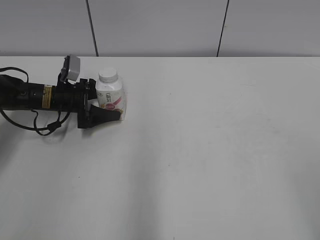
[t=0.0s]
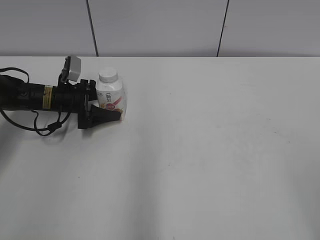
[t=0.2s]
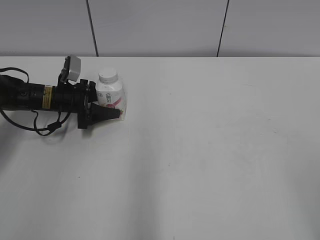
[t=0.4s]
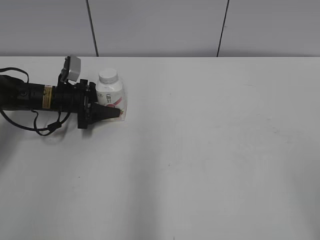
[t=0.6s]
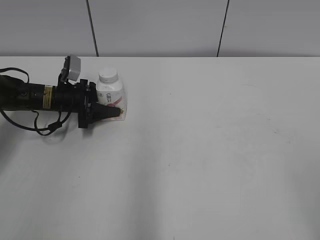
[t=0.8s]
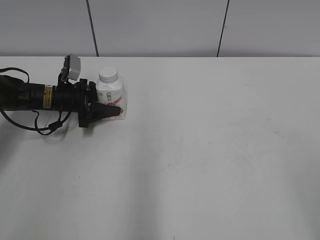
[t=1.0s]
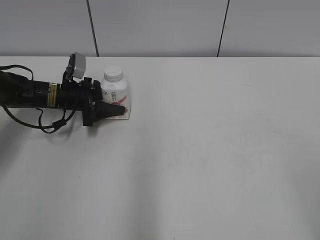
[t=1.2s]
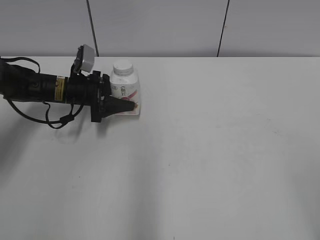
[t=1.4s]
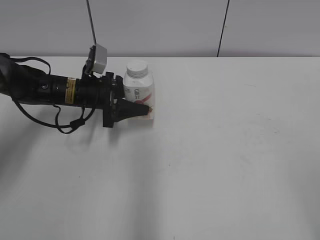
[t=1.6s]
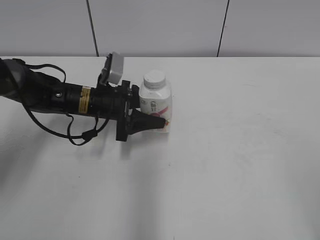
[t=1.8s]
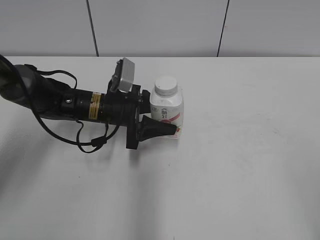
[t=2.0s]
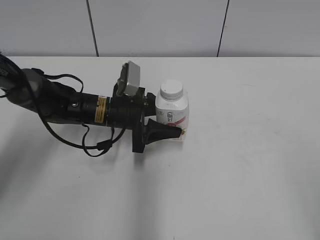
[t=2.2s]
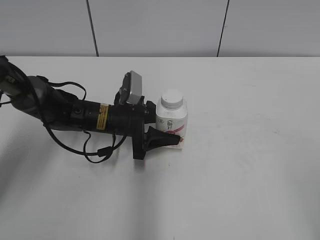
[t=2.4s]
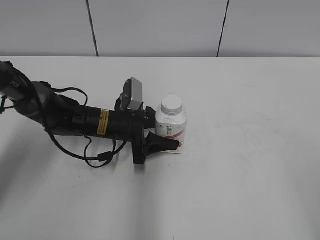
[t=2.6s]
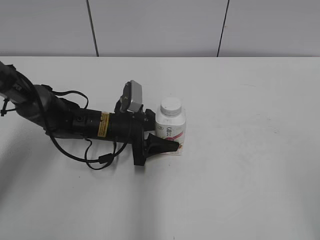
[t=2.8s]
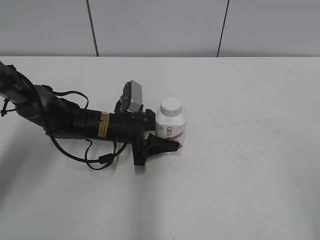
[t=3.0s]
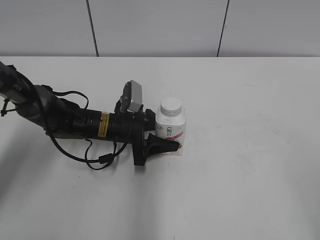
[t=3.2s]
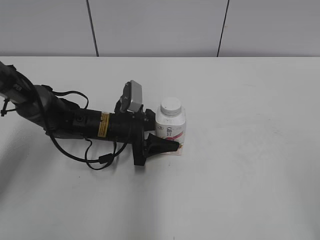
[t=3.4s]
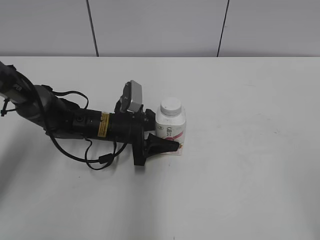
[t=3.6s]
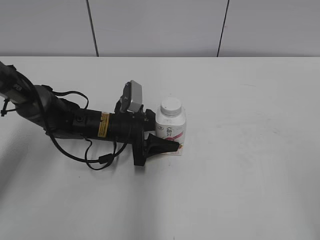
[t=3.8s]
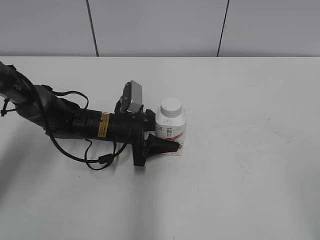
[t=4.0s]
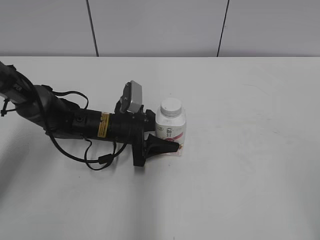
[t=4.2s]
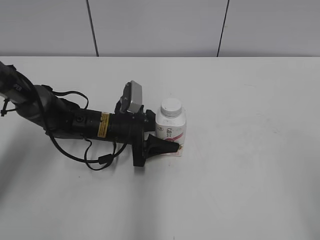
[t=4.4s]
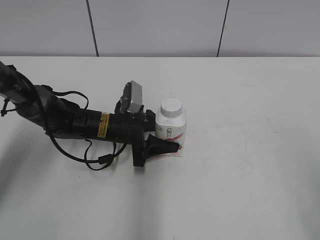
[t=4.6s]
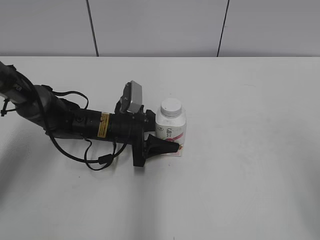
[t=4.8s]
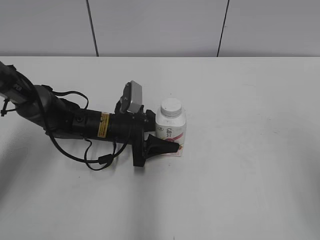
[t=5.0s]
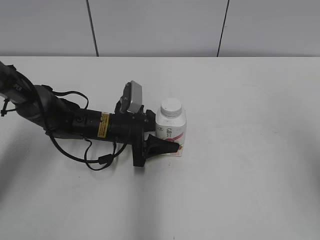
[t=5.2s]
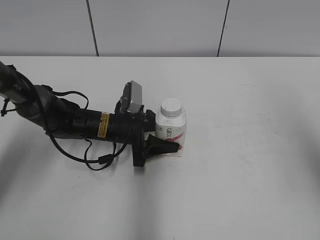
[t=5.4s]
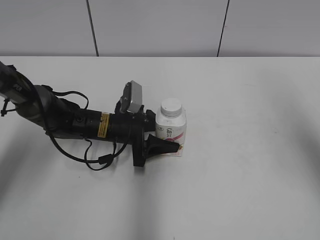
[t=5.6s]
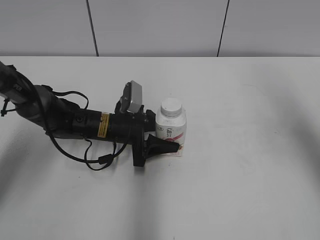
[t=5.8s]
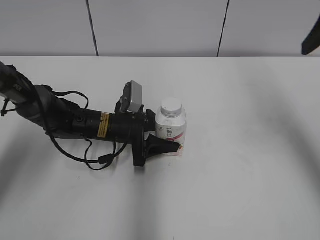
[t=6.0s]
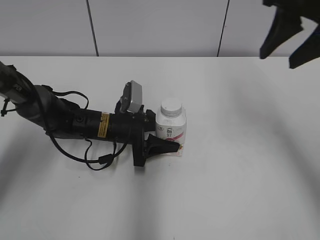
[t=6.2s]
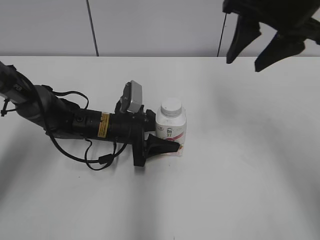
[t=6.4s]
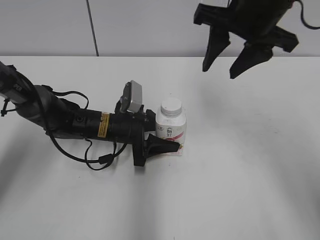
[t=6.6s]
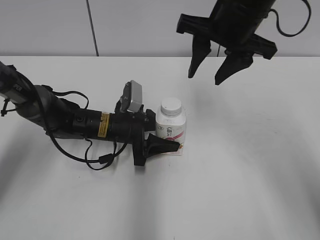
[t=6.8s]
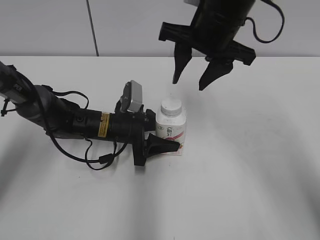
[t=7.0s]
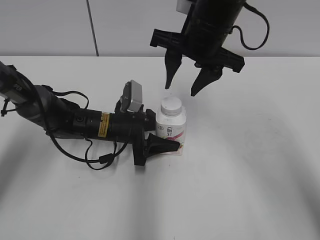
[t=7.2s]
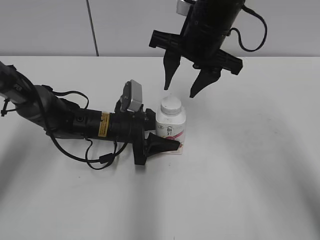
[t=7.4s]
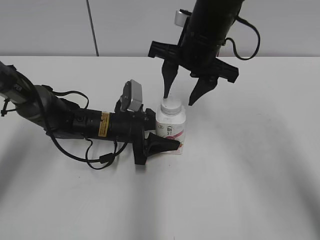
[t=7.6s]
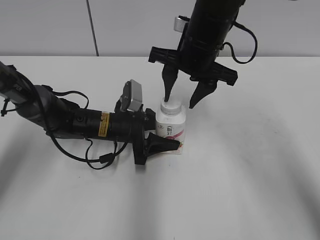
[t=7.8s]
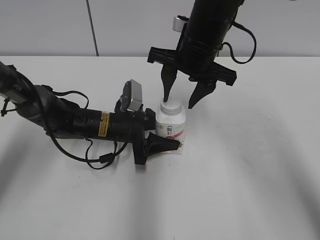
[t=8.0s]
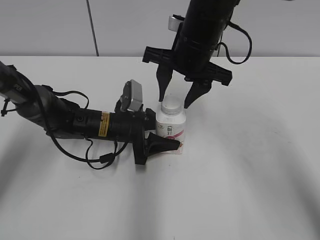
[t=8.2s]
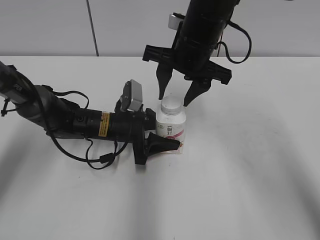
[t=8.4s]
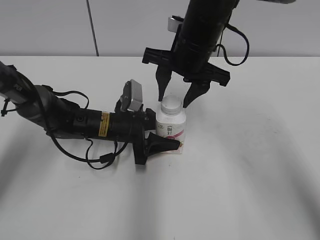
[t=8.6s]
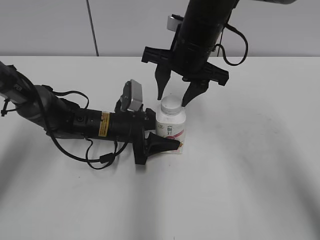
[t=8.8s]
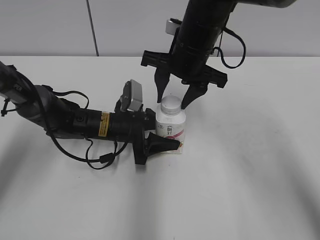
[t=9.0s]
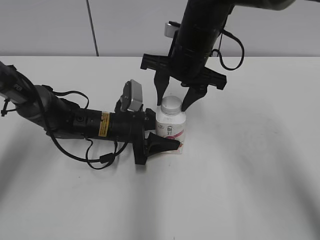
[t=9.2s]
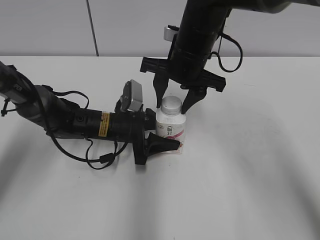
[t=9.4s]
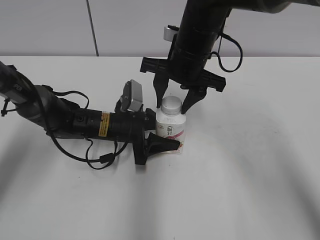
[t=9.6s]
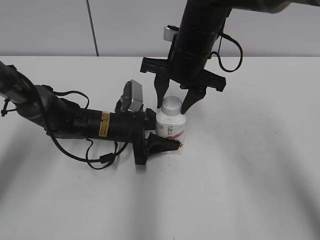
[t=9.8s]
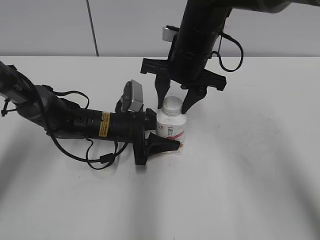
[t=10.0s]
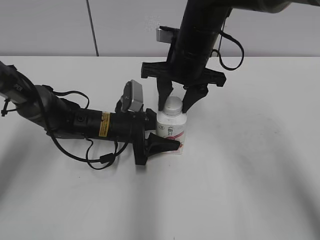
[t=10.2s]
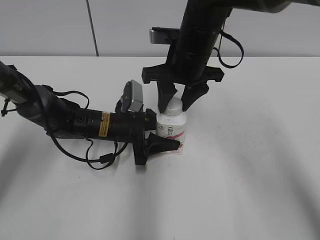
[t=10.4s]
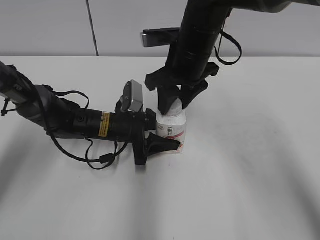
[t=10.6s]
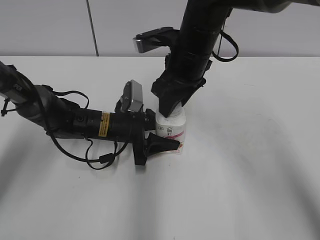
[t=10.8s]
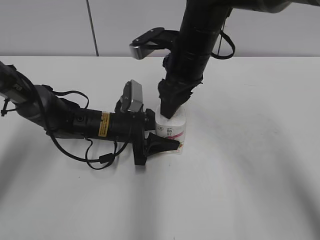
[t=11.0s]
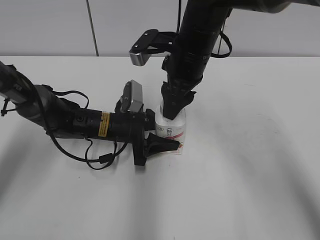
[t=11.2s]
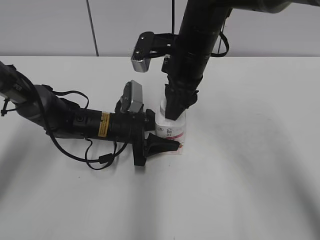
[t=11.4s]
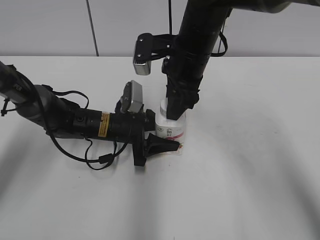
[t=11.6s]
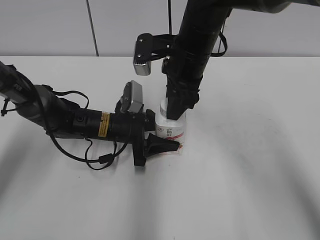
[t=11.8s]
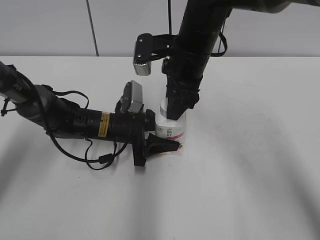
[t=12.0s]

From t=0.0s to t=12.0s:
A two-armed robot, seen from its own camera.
Step, from t=1.0s to t=3.4s: Move the Yili Changqing from left to right.
From t=0.0s to t=1.6s: The left gripper shifts some 5 cm to the right, and closes up.
From t=1.6s to t=3.0s: The left gripper heads to the right and downward, covering about 10 cm.
From t=4.4s to t=6.0s: The right gripper moves forward, approximately 25 cm.
From t=6.0s to t=7.6s: The right gripper shifts approximately 20 cm to the left, downward and forward.
From t=7.6s to t=9.0s: The grippers make only small movements.

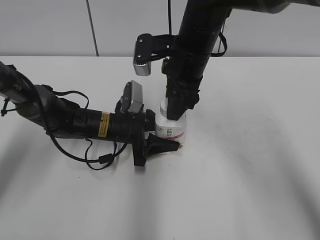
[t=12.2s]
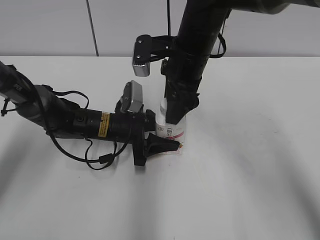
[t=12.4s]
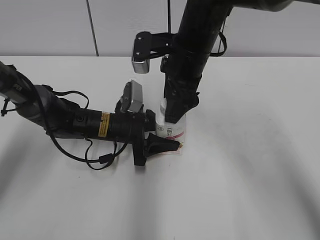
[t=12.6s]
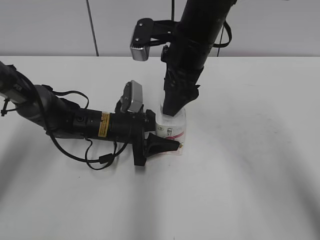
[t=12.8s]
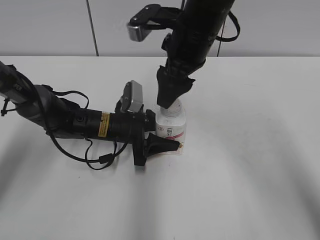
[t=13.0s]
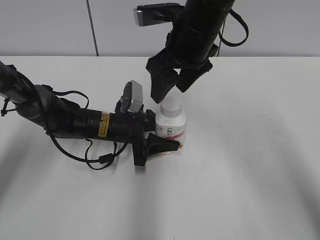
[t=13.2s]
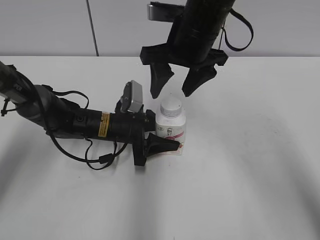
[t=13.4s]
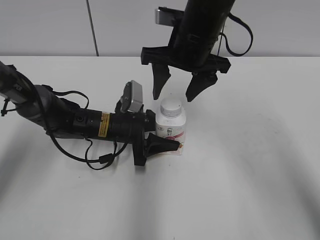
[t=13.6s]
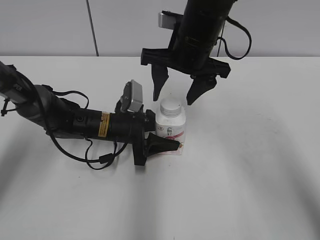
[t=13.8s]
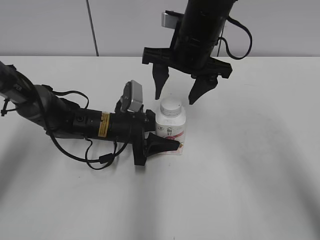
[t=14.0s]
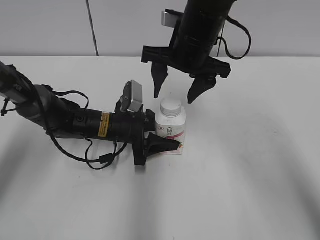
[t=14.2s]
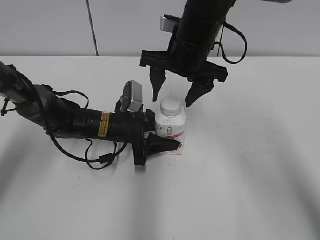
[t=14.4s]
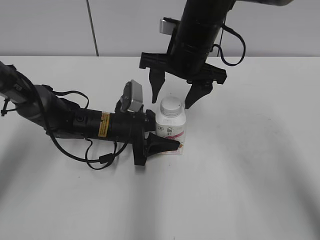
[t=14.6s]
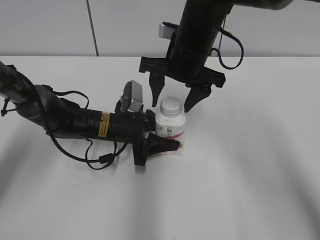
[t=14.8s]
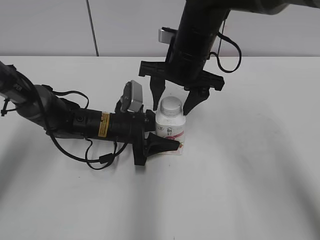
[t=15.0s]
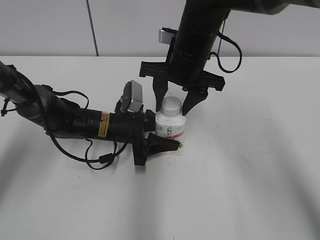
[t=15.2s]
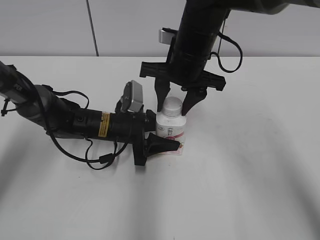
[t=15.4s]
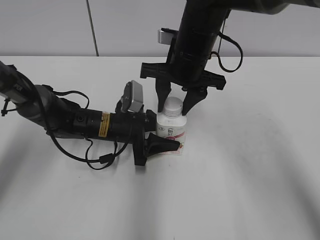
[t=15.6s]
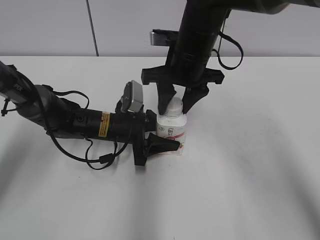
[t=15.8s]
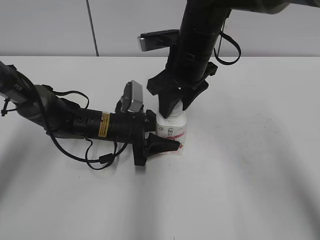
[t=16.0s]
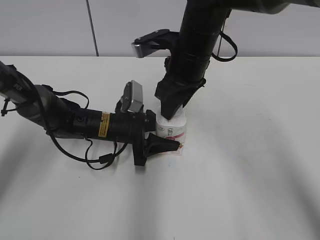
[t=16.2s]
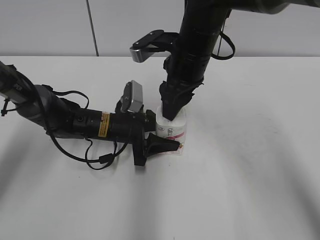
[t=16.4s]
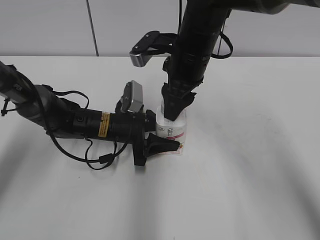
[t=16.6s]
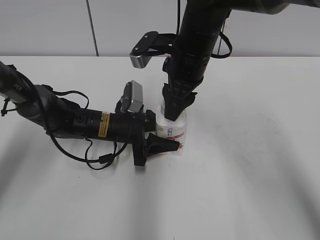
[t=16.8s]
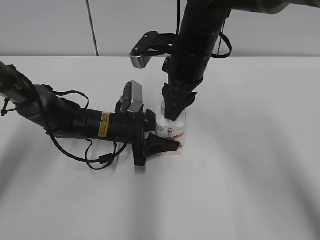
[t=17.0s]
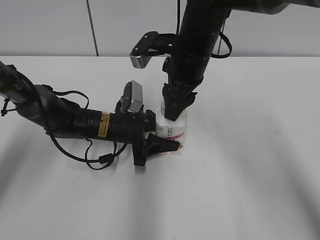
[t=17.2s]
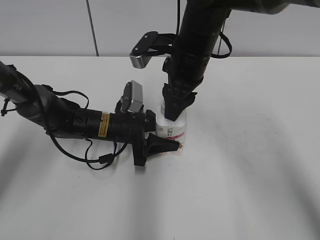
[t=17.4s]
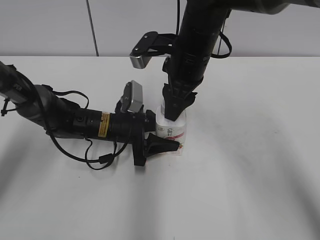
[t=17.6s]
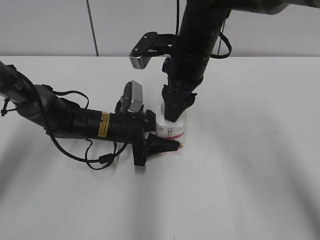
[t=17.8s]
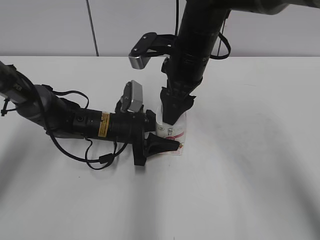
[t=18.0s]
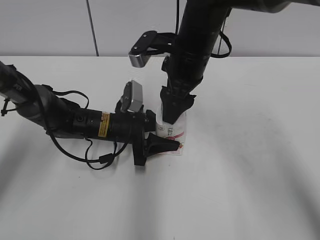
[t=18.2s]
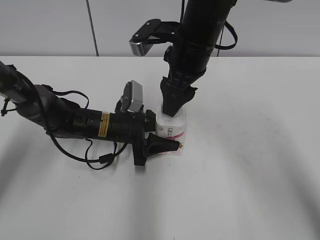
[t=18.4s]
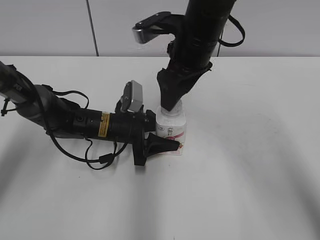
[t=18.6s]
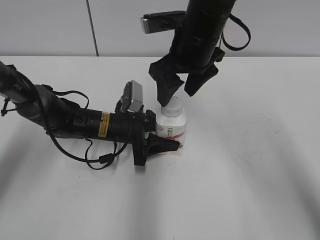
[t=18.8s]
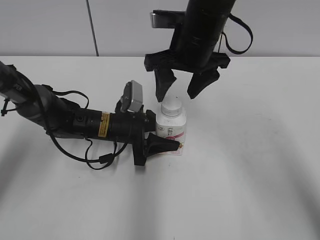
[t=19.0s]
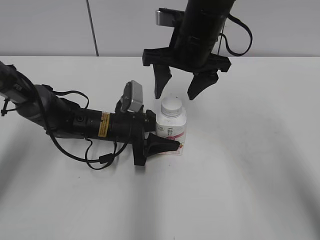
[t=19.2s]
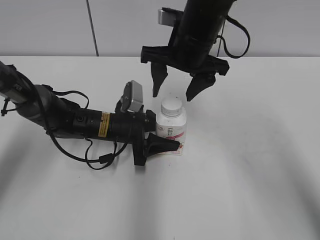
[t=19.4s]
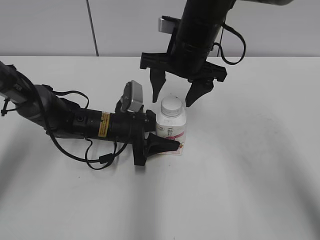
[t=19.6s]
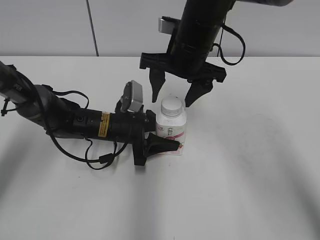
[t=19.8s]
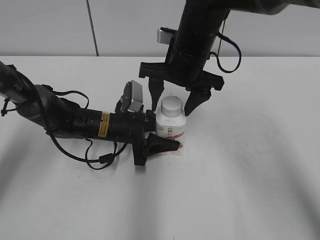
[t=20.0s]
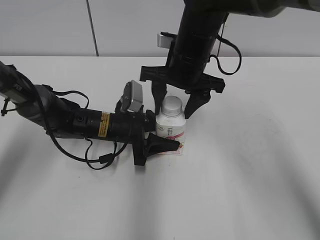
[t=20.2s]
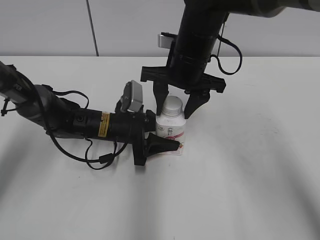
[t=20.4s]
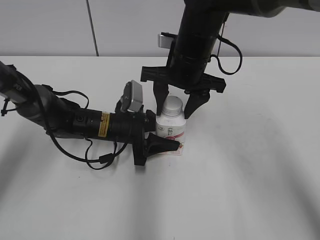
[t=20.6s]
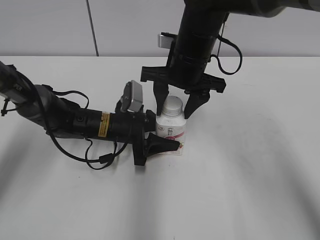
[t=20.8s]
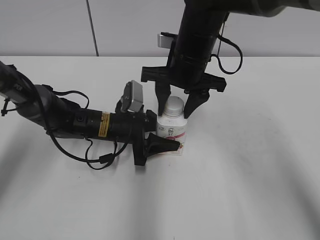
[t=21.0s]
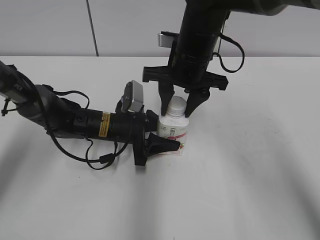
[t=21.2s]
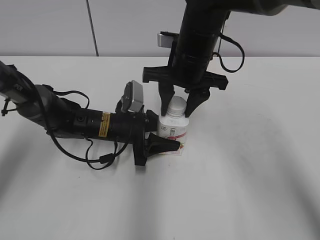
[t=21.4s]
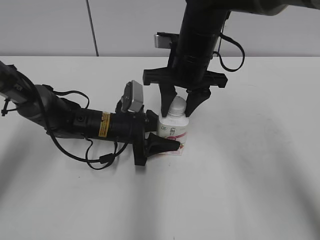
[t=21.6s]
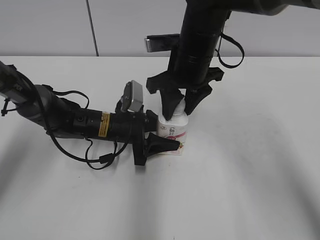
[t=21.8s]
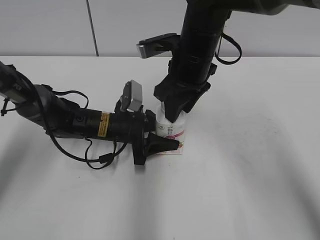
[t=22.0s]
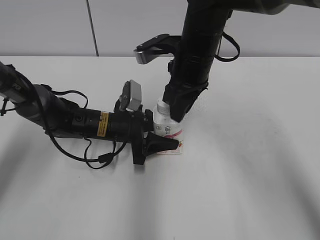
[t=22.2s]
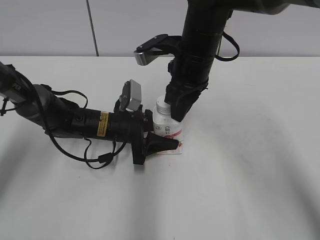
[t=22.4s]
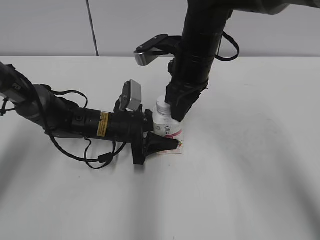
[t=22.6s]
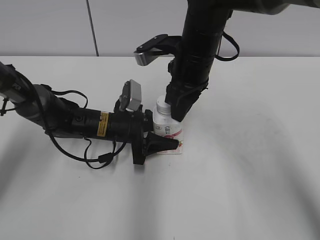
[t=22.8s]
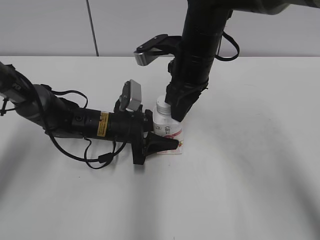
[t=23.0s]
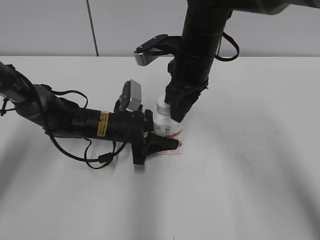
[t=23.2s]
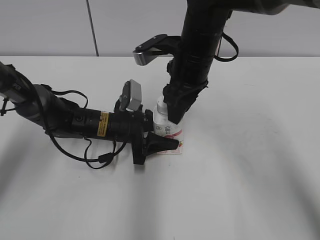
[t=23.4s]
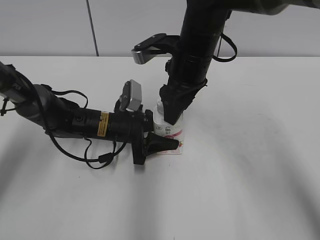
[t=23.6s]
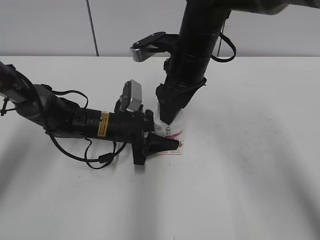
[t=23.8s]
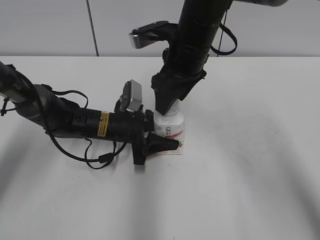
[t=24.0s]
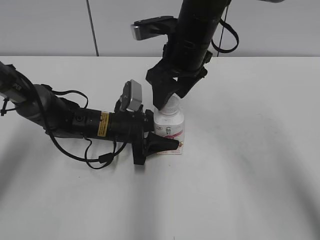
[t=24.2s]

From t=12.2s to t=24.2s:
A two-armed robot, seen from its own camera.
From t=12.2s to t=13.8s: The right gripper opens its fingers.
From t=13.8s to t=15.2s: The right gripper closes.
From t=16.6s to t=18.2s: The right gripper opens its fingers.
From t=19.8s to t=21.2s: The right gripper closes its fingers.
From t=21.2s to t=22.6s: The right gripper closes.
From t=22.6s to t=24.2s: The right gripper opens up.
